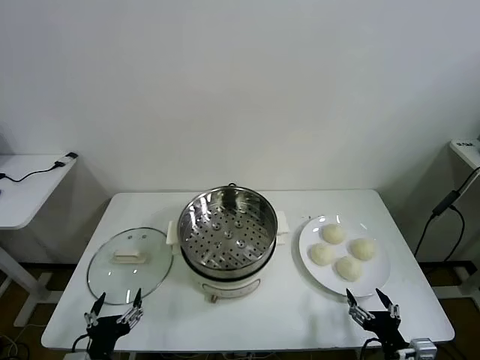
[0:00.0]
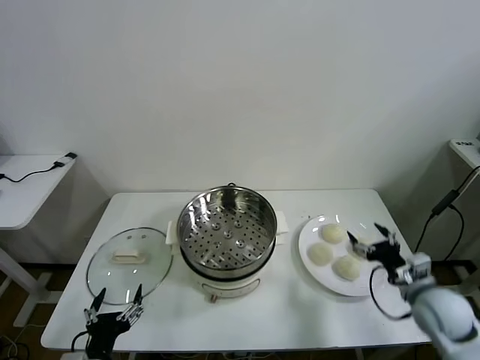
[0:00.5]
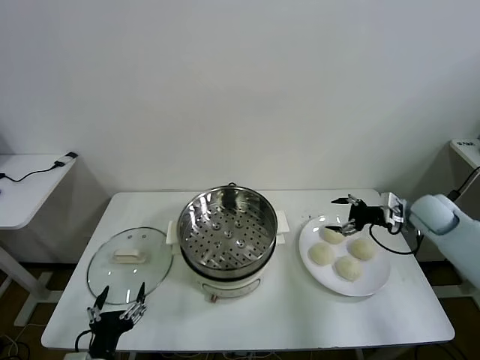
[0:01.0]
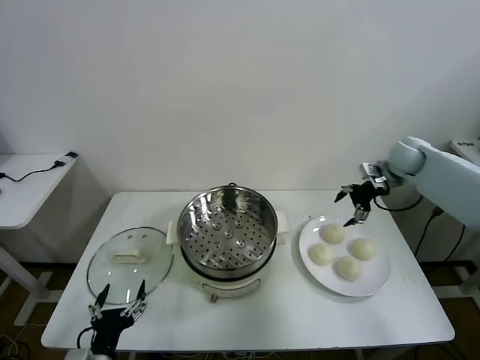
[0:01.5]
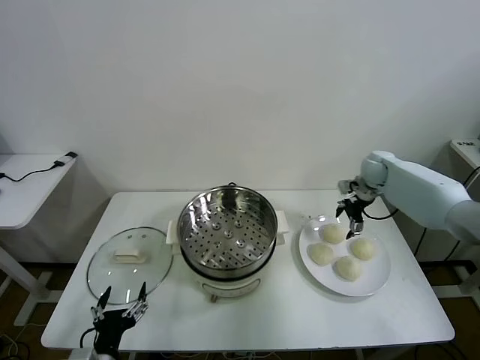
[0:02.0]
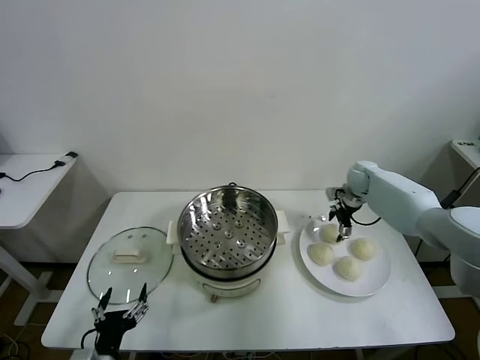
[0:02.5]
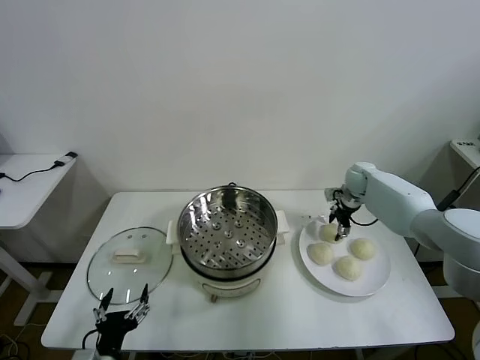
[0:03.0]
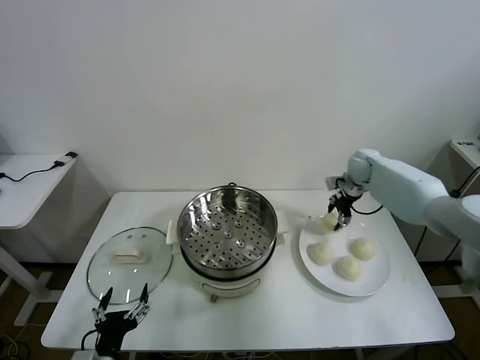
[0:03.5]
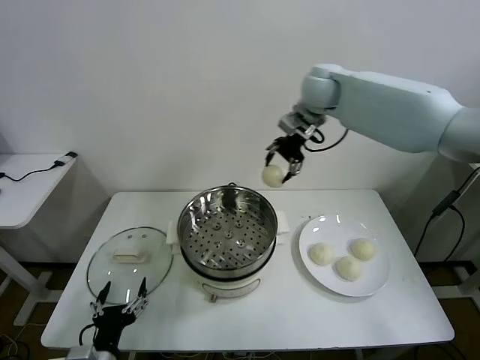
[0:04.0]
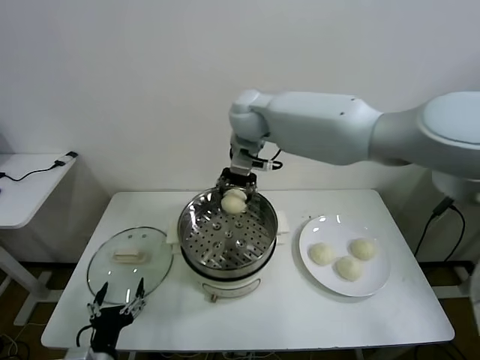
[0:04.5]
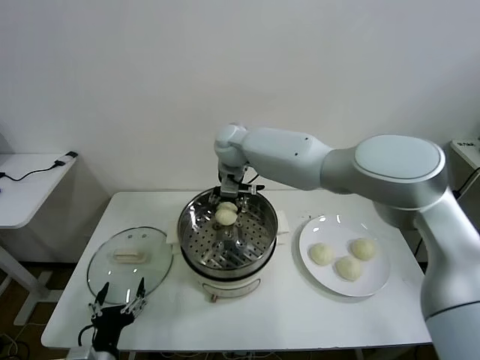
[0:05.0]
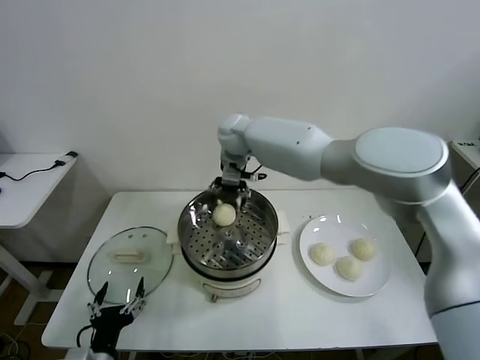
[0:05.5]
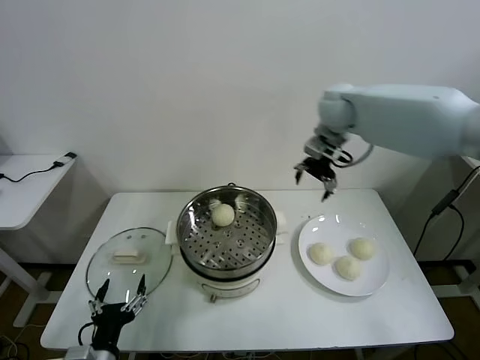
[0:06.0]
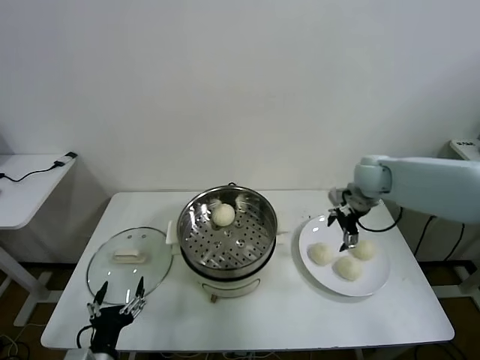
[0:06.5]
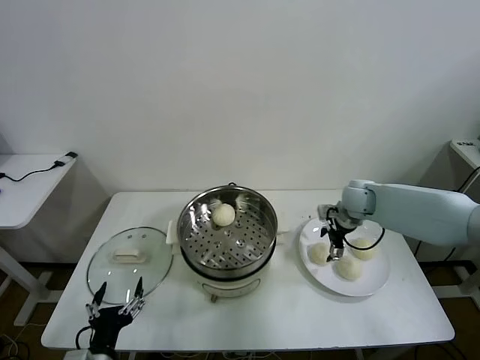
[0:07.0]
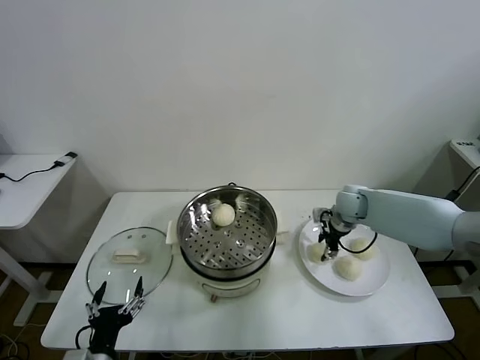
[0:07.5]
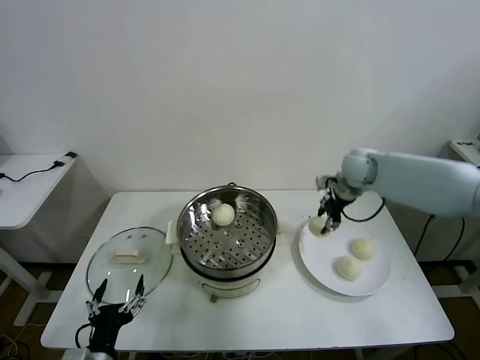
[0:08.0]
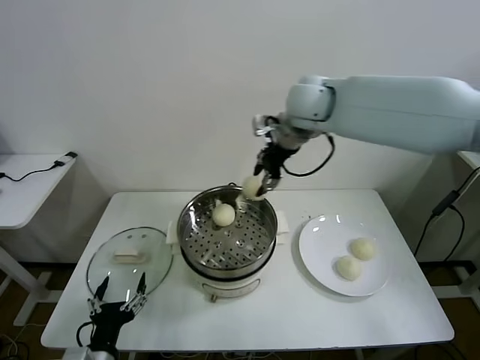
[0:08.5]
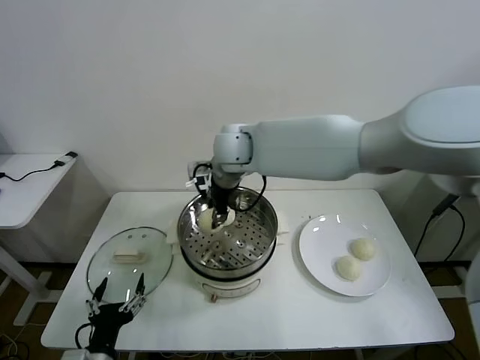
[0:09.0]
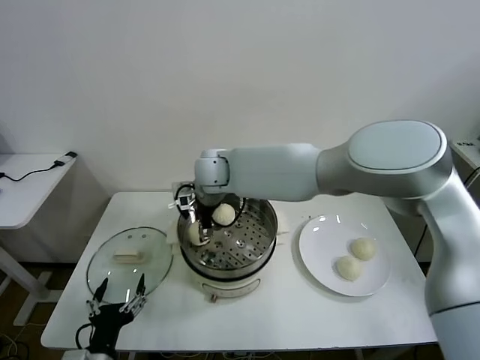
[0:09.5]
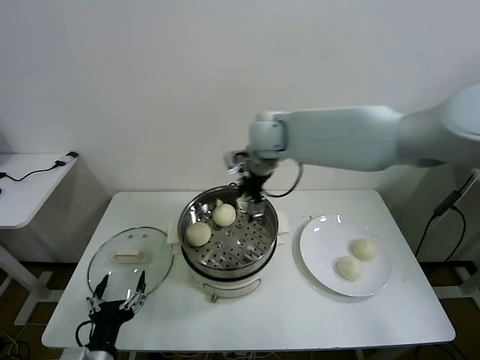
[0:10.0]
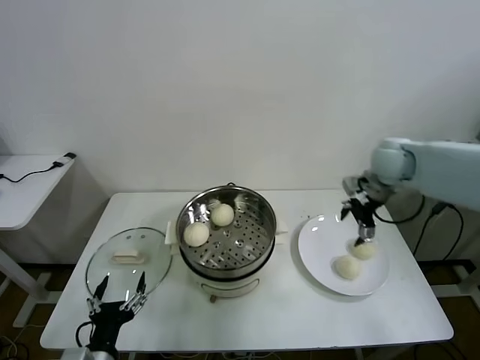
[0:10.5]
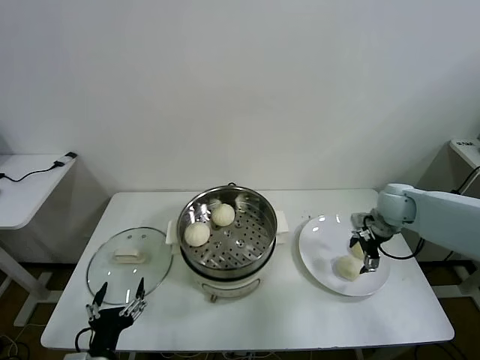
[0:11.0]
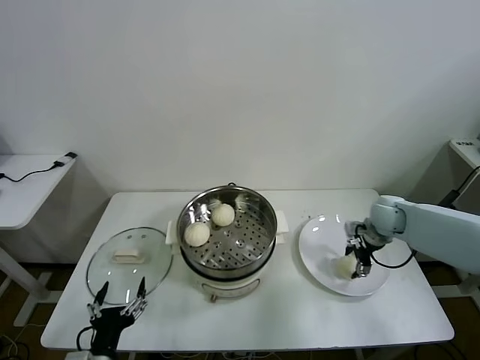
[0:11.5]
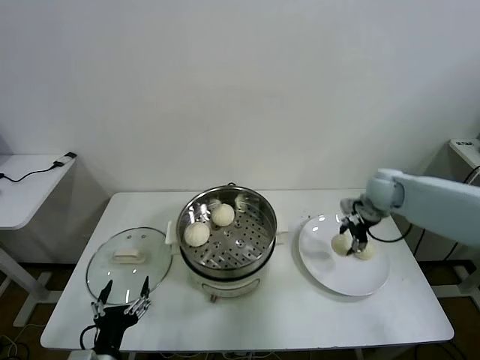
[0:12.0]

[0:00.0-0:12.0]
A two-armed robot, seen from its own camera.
Task of the whole recording: take steamed baozi put them in steamer then cover it.
Step, 0:00.0 to 0:03.0: Grasp the baozi in the plate with right gripper.
Step, 0:03.5 to 0:05.0: Place the baozi on the steamer with right gripper.
Step, 0:05.5 to 0:07.5: Grasp the baozi in the plate with right gripper.
Step, 0:08.0 to 0:09.5: Place the baozi on the steamer with right gripper.
Step, 0:10.0 to 0:11.5: Grasp the baozi in the plate with right gripper.
0:02.0 to 0:04.0: The right gripper goes roughly 35 cm upward and to the left, and closes its fingers.
0:04.0 to 0:06.0: The right gripper is displaced to the right and downward by about 15 cm, and opens up.
0:06.0 to 0:08.0: The right gripper travels downward and back again, roughly 20 cm each way, and closes.
0:08.0 to 0:10.0: The right gripper is displaced to the left and upward by some 20 cm, and opens.
0:10.0 to 0:12.0: The right gripper travels to the right and downward by about 25 cm, and closes up.

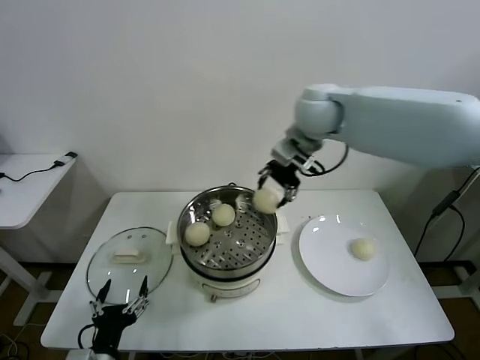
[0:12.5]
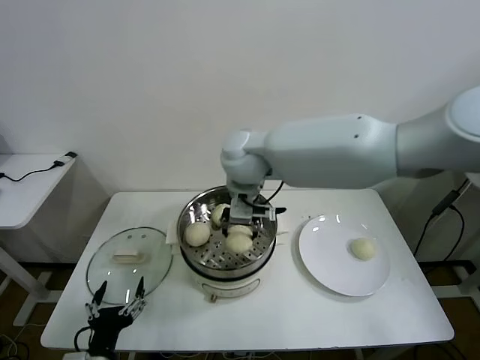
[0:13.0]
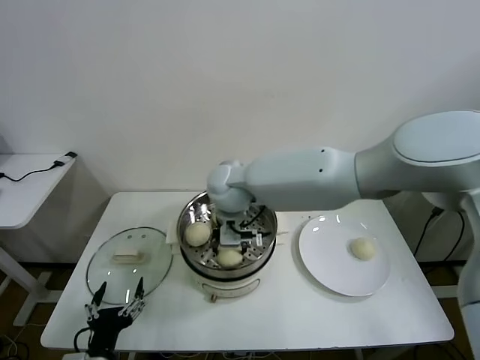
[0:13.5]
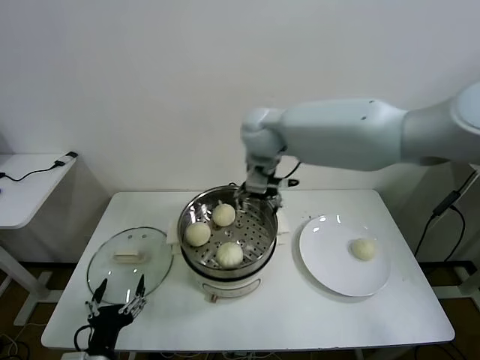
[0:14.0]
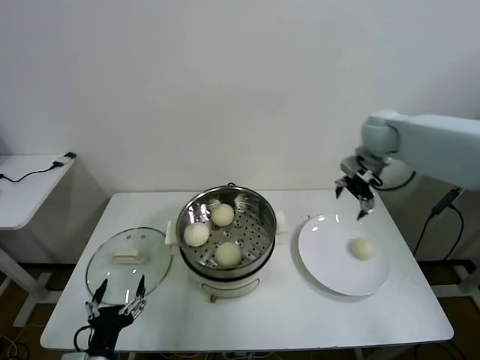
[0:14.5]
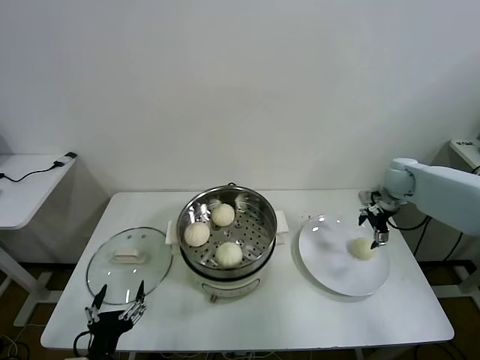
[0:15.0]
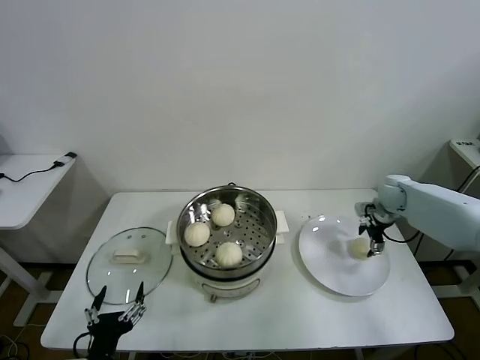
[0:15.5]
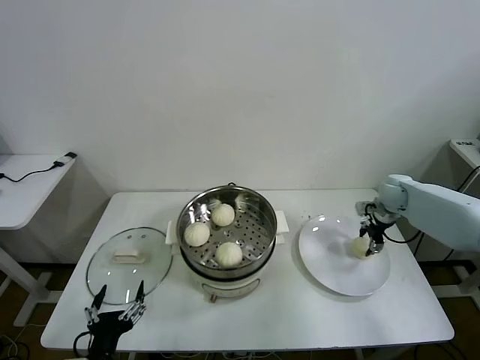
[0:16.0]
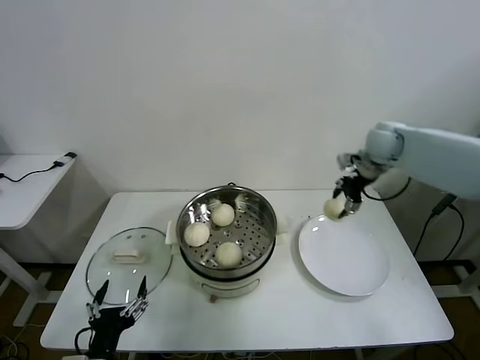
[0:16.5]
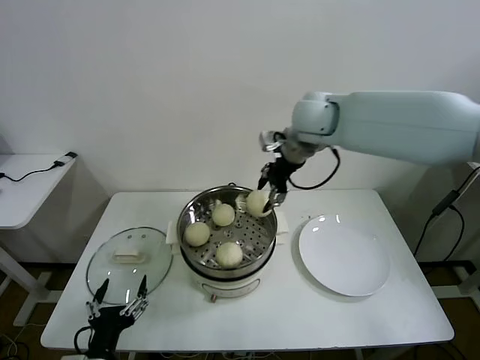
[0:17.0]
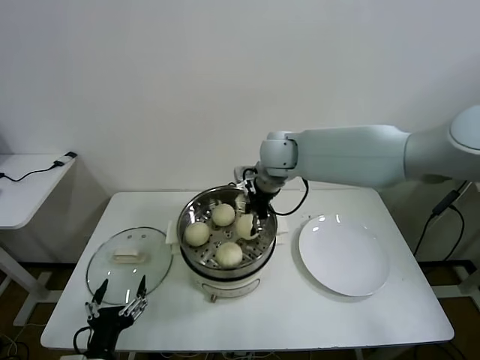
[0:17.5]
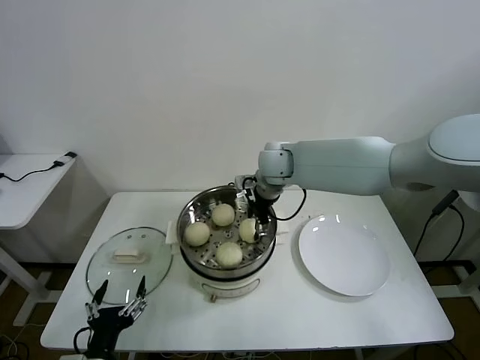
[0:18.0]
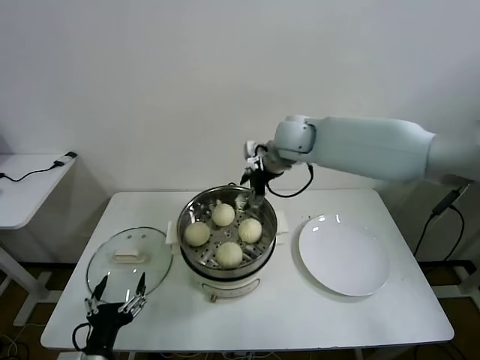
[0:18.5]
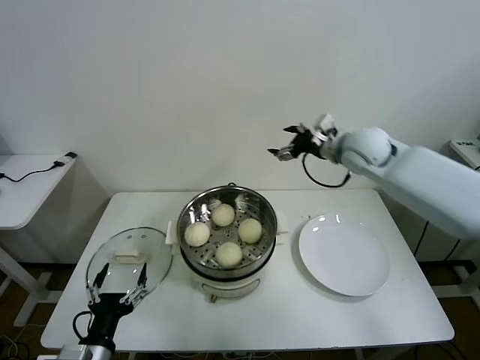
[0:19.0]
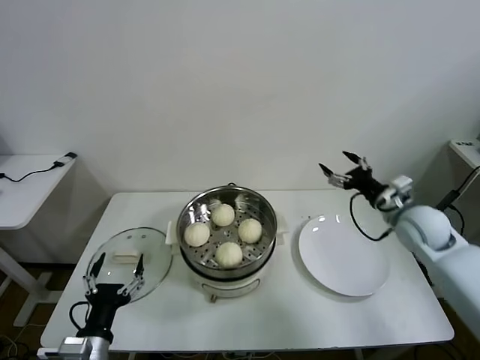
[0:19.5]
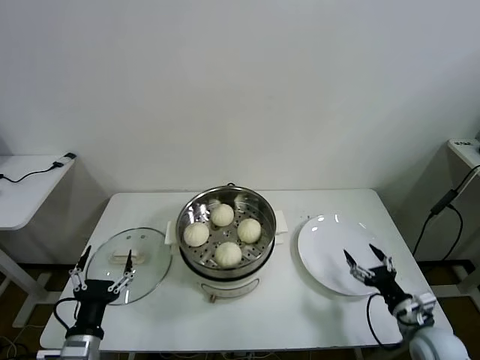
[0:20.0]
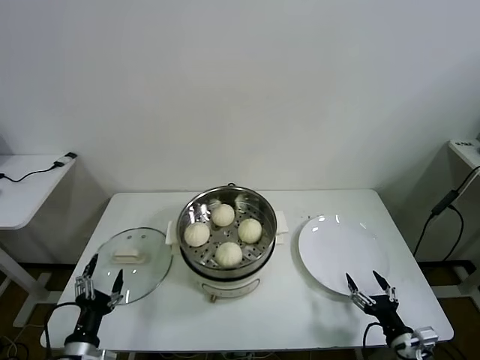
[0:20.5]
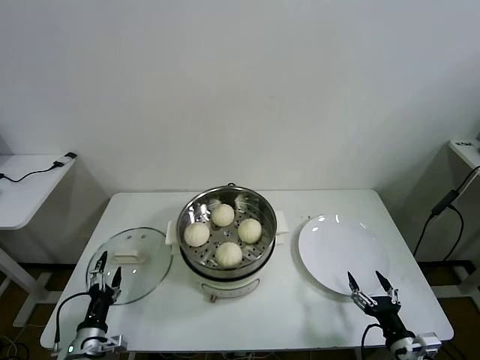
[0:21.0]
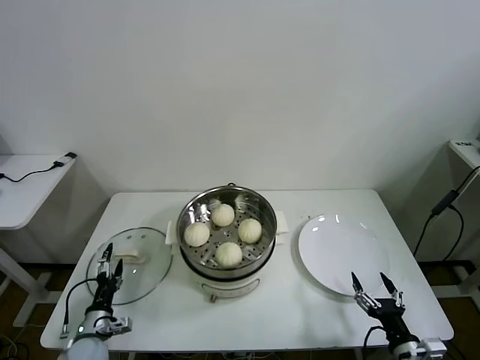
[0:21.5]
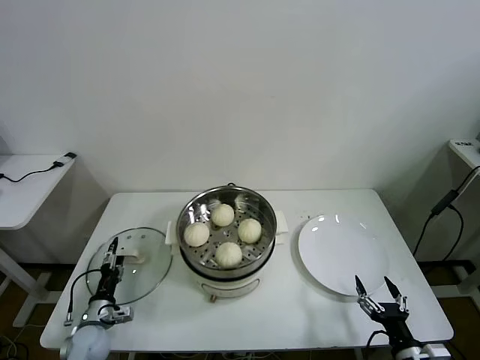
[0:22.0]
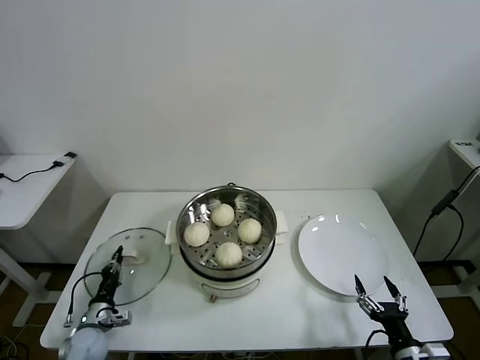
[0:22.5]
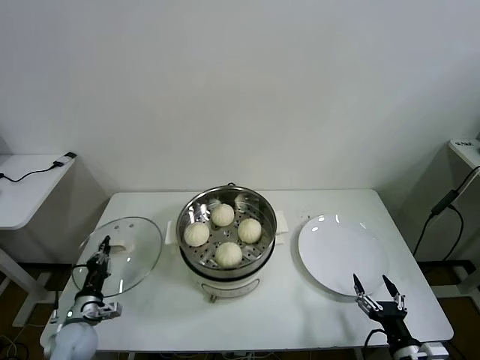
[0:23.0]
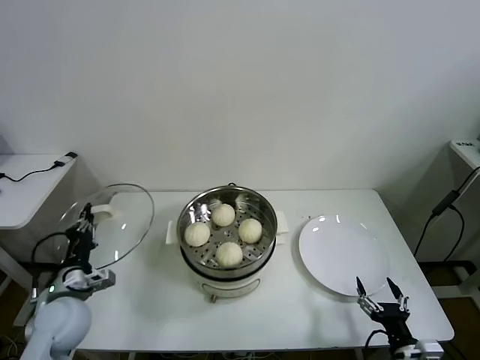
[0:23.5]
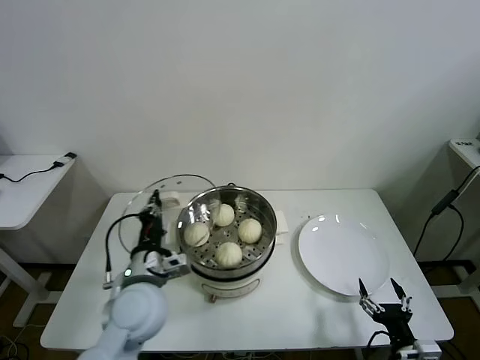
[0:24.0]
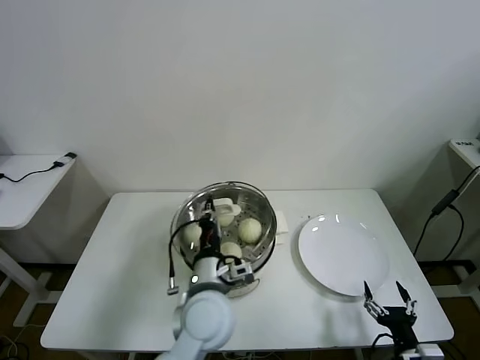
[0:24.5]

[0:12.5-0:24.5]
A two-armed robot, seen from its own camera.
Task of the whole recording: take steamed baozi put them in steamer then cover it.
Step, 0:12.5 to 0:13.5: Place the baozi on the steamer with right gripper.
Step, 0:14.0 to 0:15.5: Grasp the baozi in the plate with right gripper.
Step, 0:16.0 to 0:18.0: Place the baozi on the steamer with right gripper.
Step, 0:18.5 to 0:22.5: Grasp the pot lid with left gripper.
0:12.5 to 0:14.5: The right gripper travels to the right and downward by some 25 cm, and opens up.
0:14.5 to 0:16.5: The right gripper travels downward and back again, some 15 cm each way, and closes its fingers.
0:16.5 to 0:18.5: The right gripper shifts roughly 20 cm to the left, and opens.
0:18.5 to 0:20.5: The right gripper goes about 60 cm backward, downward and to the right. Meanwhile the left gripper goes approximately 10 cm downward and to the left.
0:20.5 to 0:22.5: The left gripper is displaced forward, downward and to the left by approximately 20 cm, and closes its fingers.
0:22.5 to 0:24.5: The left gripper moves to the right and upward, approximately 40 cm.

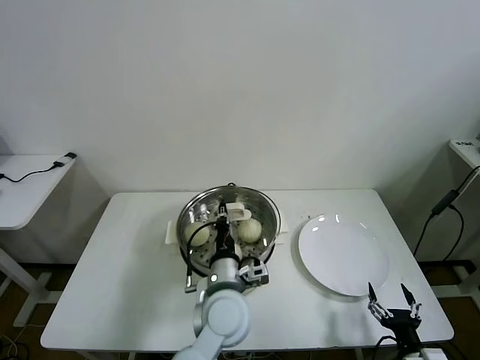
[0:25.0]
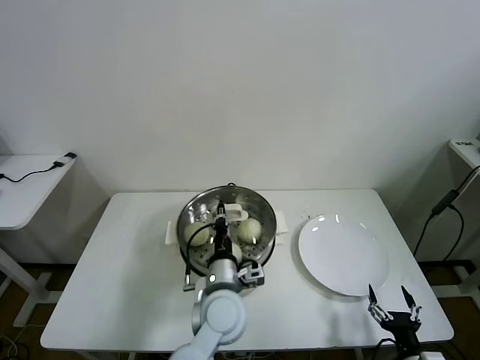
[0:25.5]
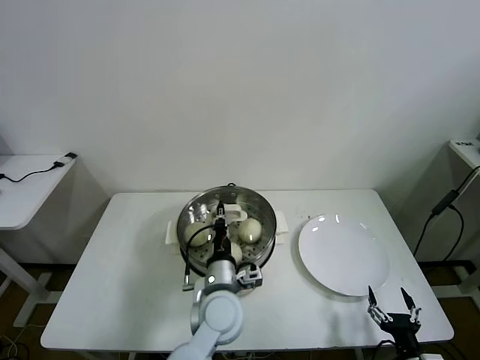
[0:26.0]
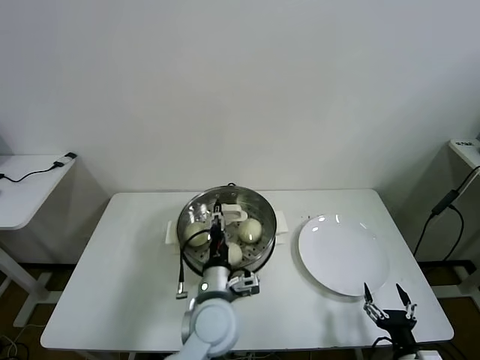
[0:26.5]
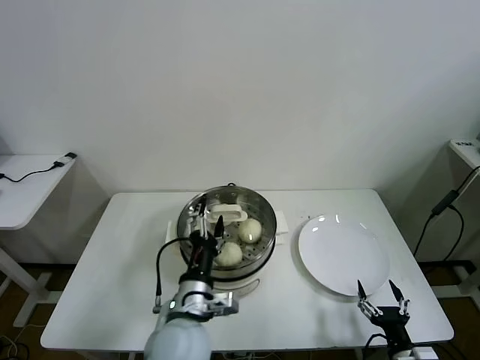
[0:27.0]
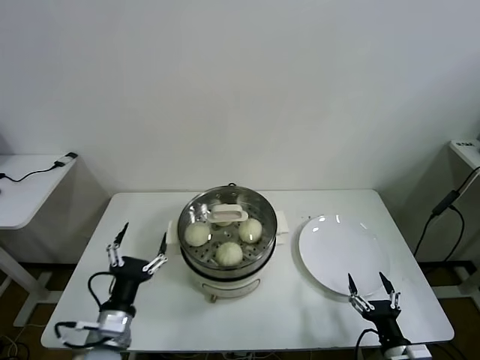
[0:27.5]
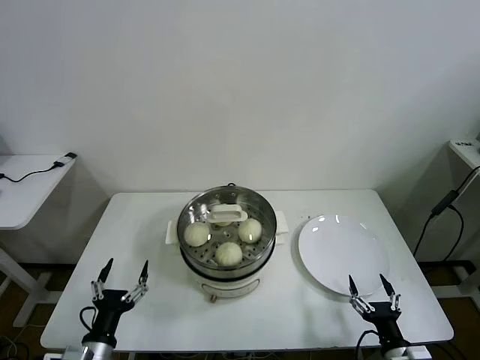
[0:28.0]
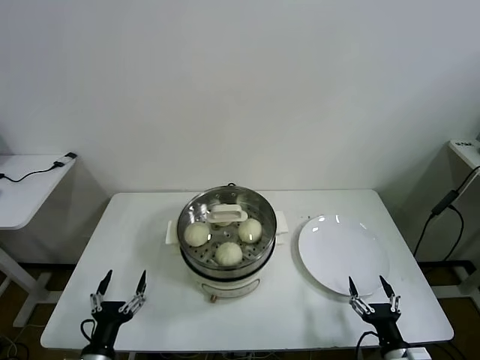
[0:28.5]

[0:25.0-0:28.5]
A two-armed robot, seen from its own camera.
Task of the whole recording: take steamed baozi put them in steamer then cover it.
0:25.0 to 0:27.0: The left gripper shifts about 10 cm to the left and backward, and opens up.
0:27.0 to 0:28.5: The left gripper moves to the left, downward and backward, roughly 25 cm.
